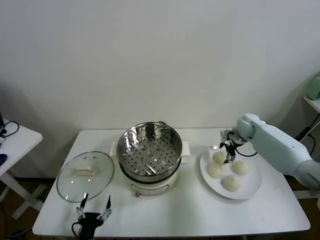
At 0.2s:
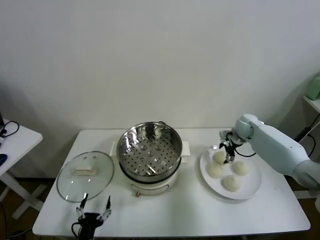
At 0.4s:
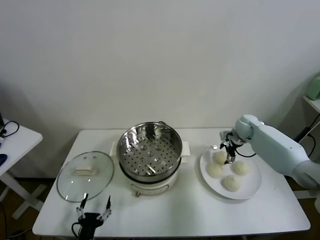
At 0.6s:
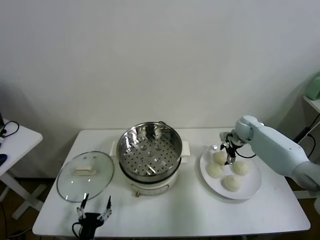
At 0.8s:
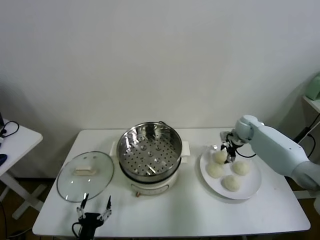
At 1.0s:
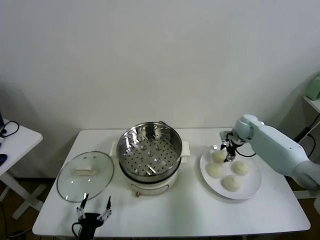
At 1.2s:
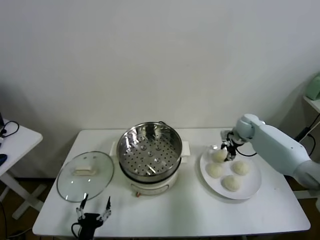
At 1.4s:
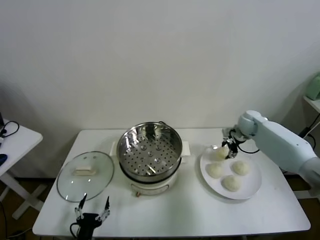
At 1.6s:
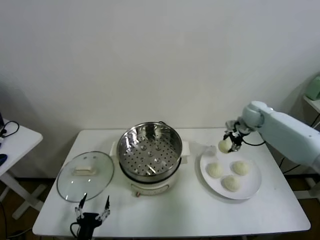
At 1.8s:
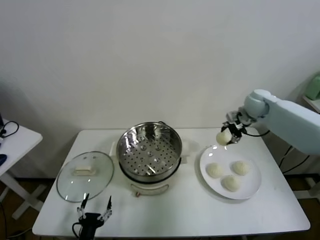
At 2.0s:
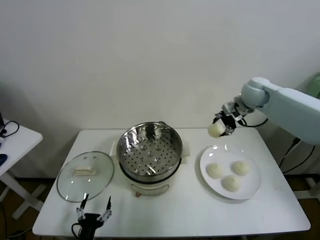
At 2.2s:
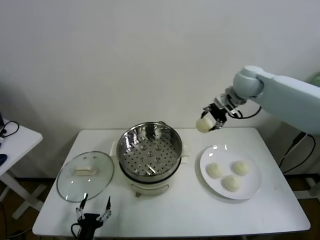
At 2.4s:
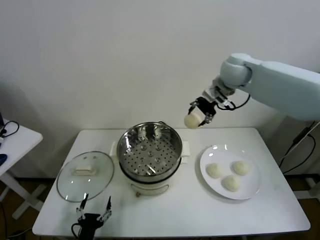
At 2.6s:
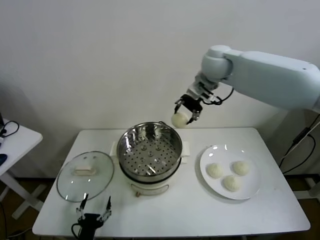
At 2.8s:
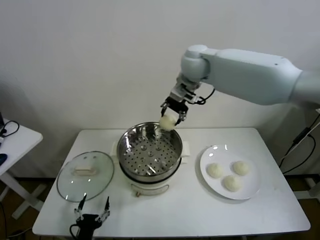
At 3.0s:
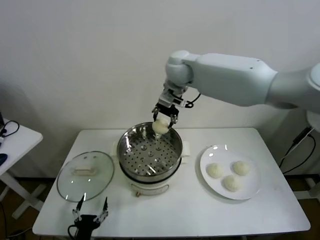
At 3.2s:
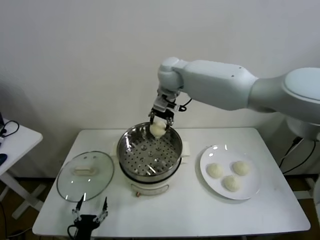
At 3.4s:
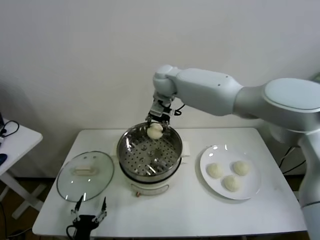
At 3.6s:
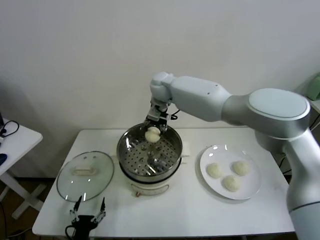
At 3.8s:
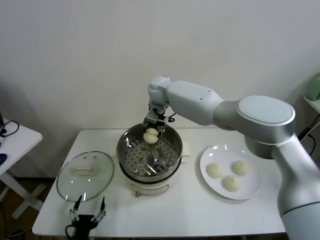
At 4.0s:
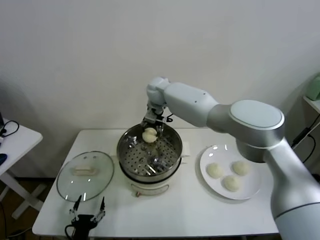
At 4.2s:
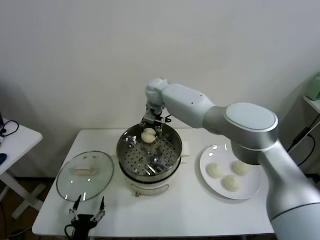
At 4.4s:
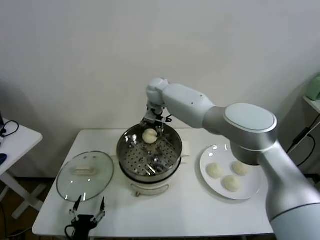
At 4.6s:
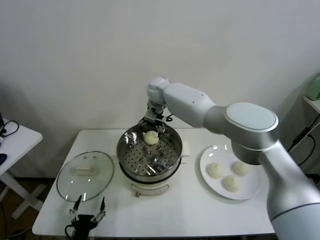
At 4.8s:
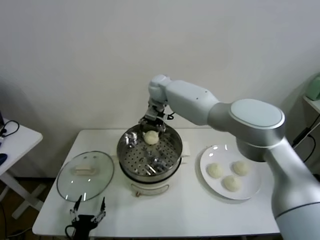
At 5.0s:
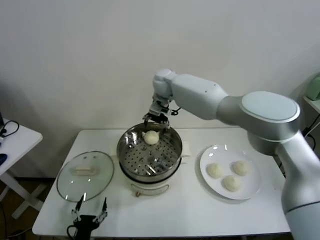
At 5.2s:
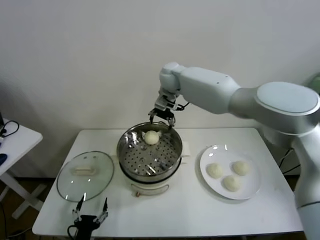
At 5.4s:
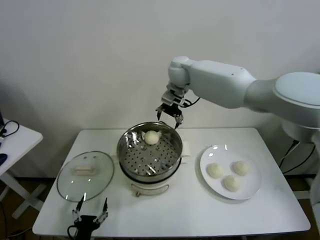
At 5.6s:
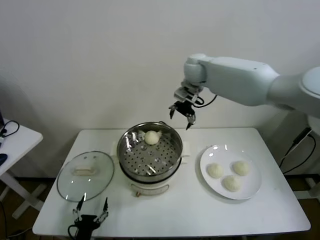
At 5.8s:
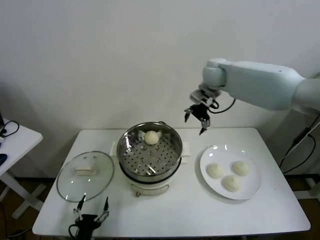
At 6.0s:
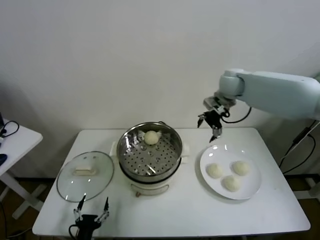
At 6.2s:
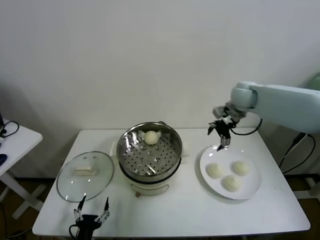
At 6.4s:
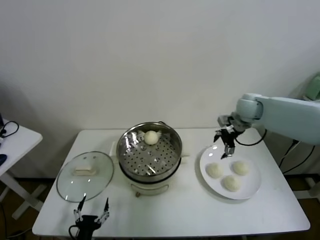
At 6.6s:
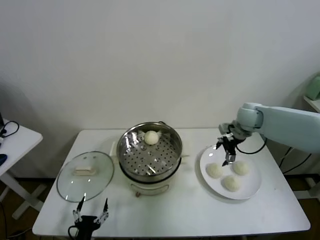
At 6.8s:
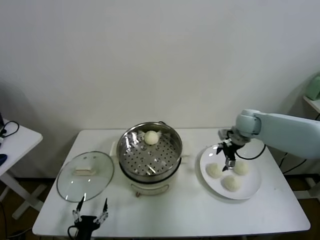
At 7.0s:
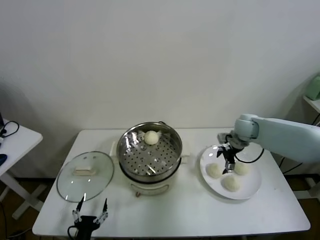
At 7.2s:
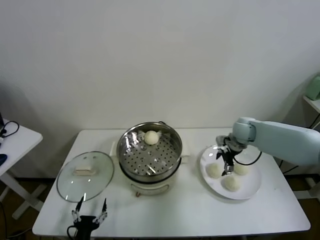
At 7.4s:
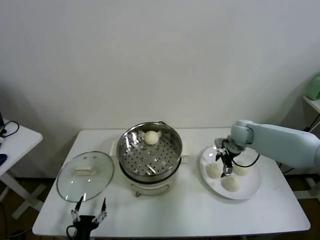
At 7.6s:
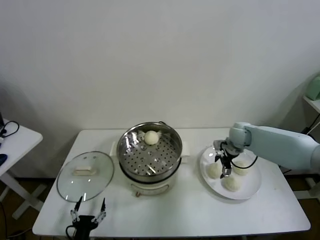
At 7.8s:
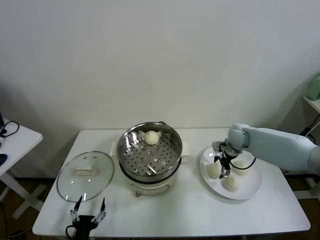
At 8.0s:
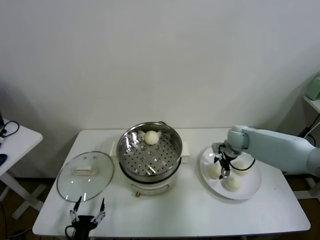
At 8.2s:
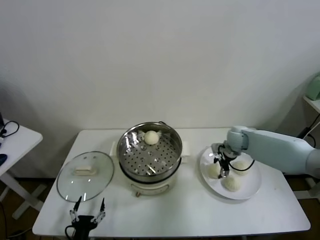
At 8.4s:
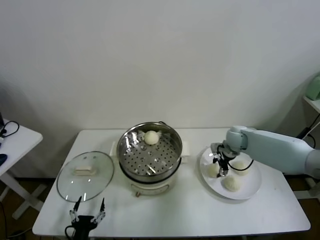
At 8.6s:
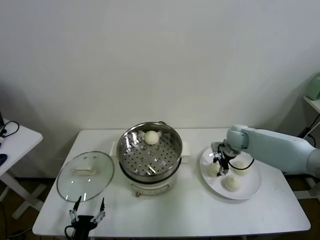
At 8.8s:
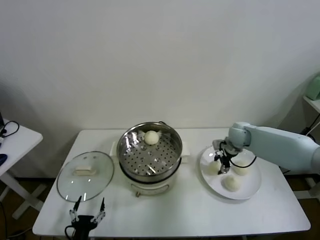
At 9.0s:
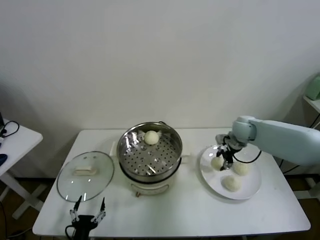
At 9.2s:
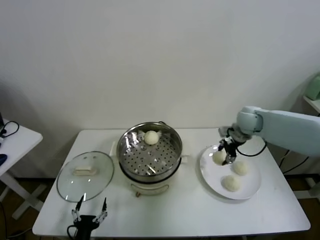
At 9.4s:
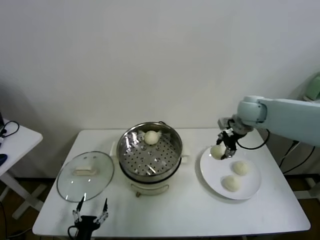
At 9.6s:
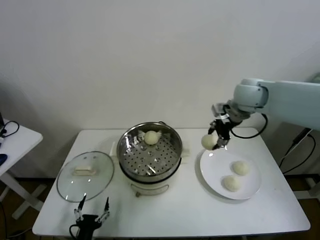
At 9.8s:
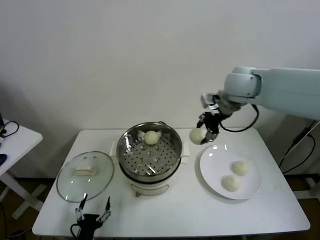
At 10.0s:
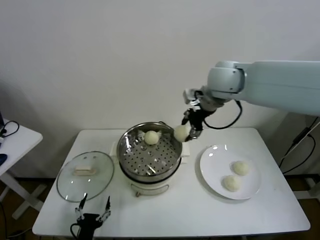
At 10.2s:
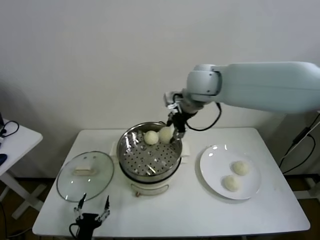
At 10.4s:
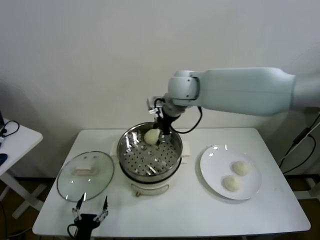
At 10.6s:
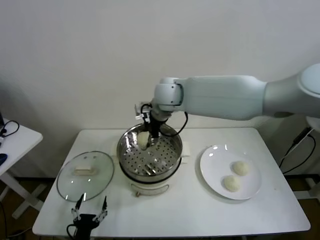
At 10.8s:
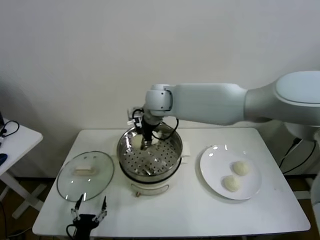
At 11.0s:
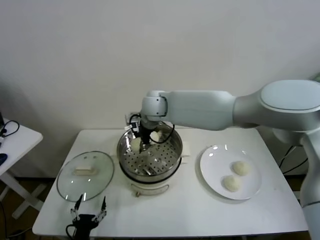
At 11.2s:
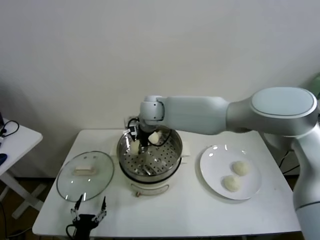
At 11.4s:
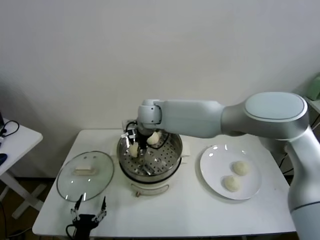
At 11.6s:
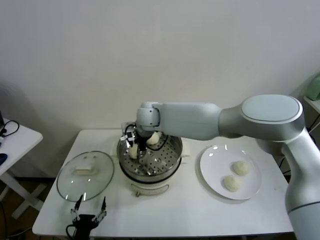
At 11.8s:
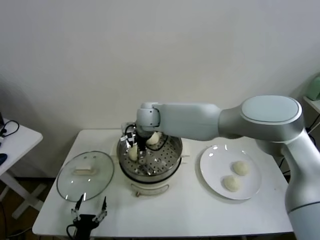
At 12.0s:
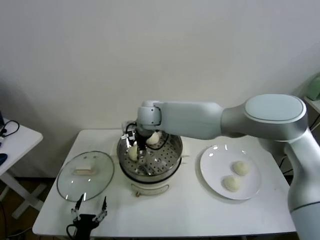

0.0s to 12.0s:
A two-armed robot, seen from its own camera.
Task of the whole recording: take steamed baozi put them in steamer.
Step, 1.4s to 4.6s: Place the baozi on the steamer with right gripper.
Step, 5.0s to 8.6s: Grasp the baozi in the plate with right gripper.
0.0s to 1.6s: The right gripper shifts roughly 10 cm upward, and closes its fingers.
1.6s to 3.0s: The right gripper goes approximately 35 cm to the left and upward.
3.0s to 4.4s: The right gripper heads downward, forward and to the left, covering roughly 15 cm, and opens its fingers.
4.4s to 6.0s: The right gripper moves to the right, approximately 25 cm.
6.0s to 7.6s: The right gripper travels downward by roughly 20 cm.
7.6s to 9.0s: The right gripper travels upward by some 5 cm, and closes.
9.0s to 10.4s: The right gripper is displaced to the left and upward by approximately 30 cm.
10.4s to 12.0s: The right gripper travels downward and to the left by about 15 cm, and opens up.

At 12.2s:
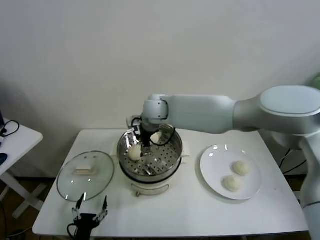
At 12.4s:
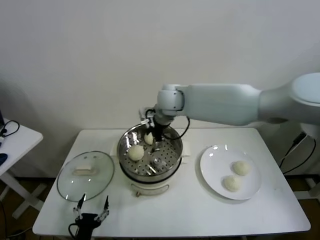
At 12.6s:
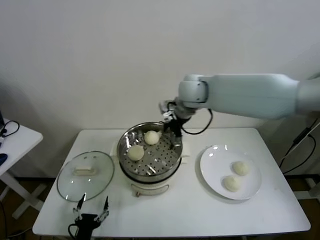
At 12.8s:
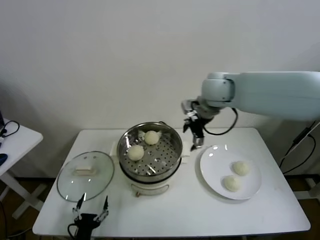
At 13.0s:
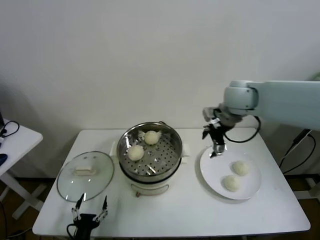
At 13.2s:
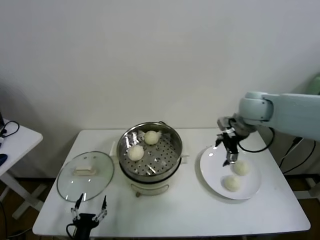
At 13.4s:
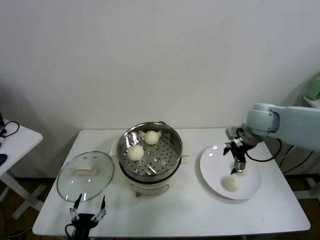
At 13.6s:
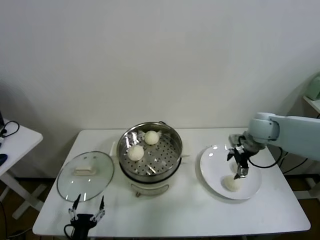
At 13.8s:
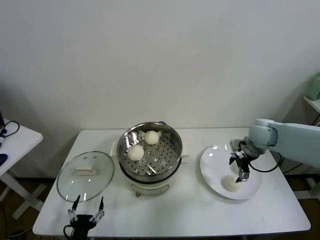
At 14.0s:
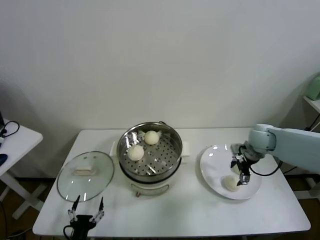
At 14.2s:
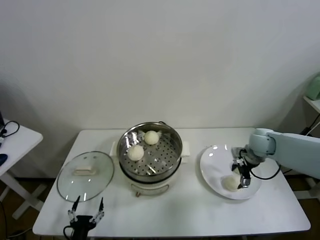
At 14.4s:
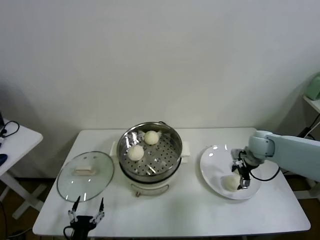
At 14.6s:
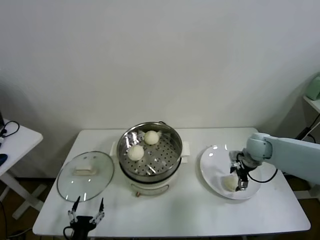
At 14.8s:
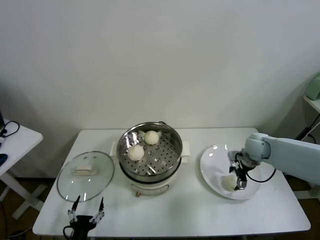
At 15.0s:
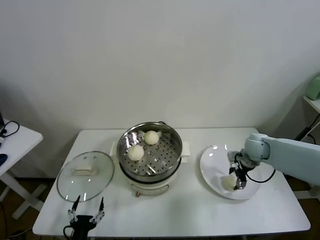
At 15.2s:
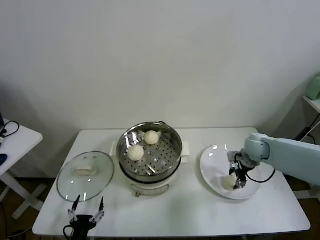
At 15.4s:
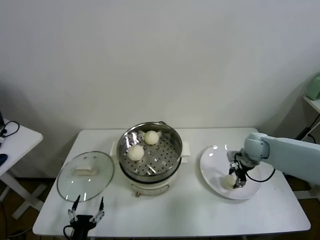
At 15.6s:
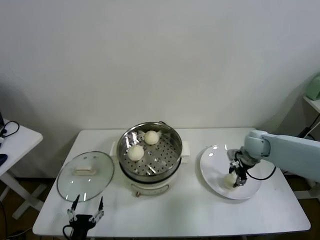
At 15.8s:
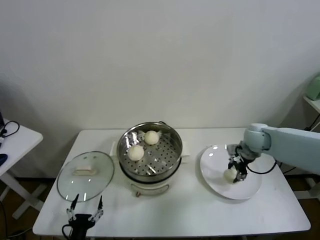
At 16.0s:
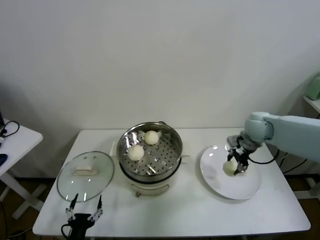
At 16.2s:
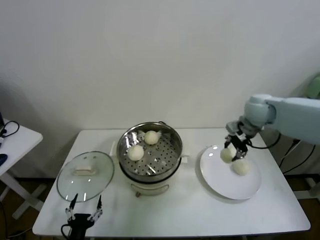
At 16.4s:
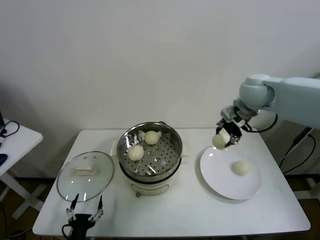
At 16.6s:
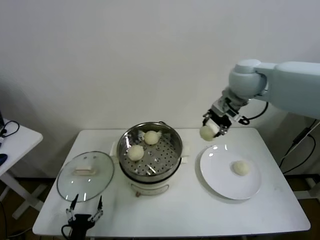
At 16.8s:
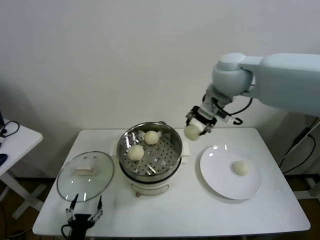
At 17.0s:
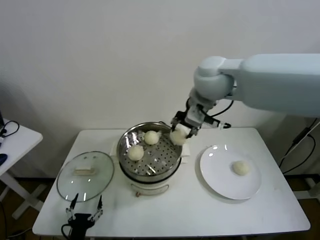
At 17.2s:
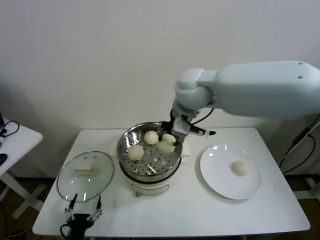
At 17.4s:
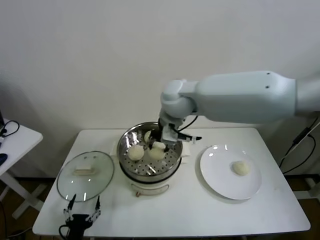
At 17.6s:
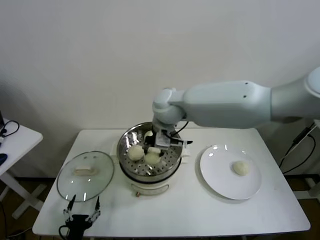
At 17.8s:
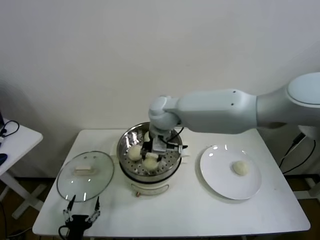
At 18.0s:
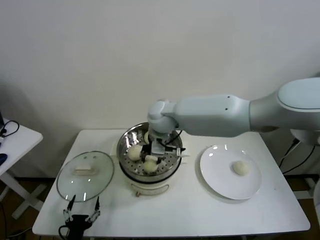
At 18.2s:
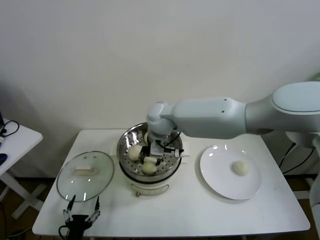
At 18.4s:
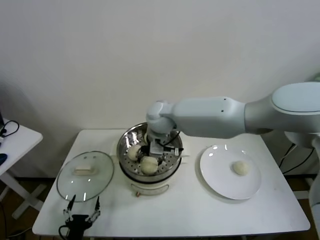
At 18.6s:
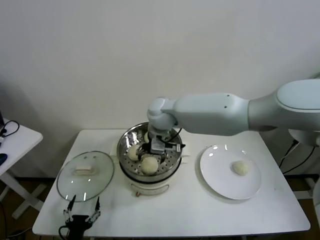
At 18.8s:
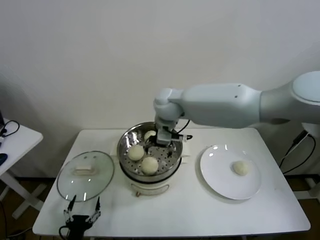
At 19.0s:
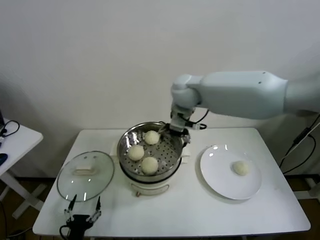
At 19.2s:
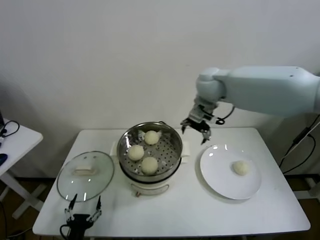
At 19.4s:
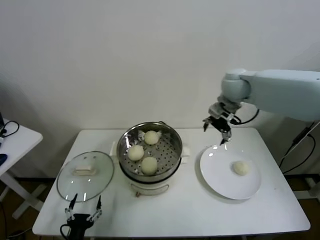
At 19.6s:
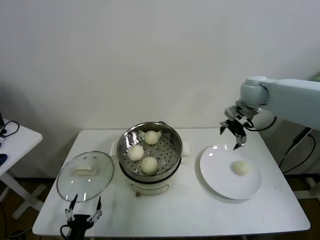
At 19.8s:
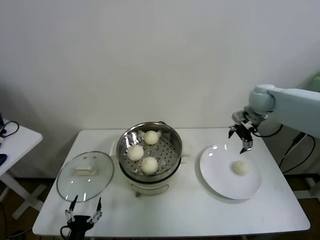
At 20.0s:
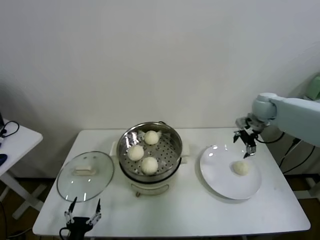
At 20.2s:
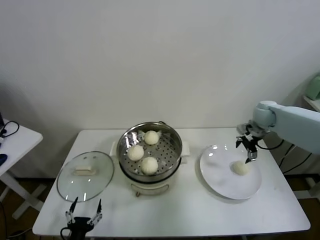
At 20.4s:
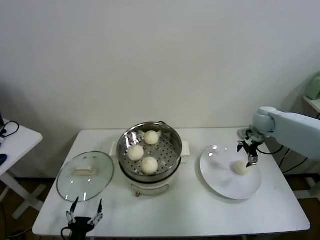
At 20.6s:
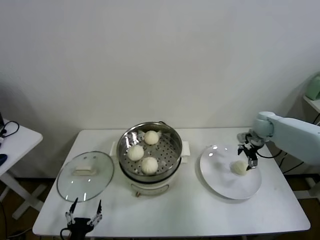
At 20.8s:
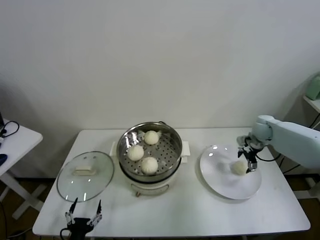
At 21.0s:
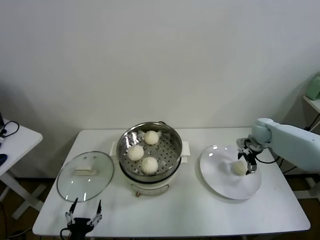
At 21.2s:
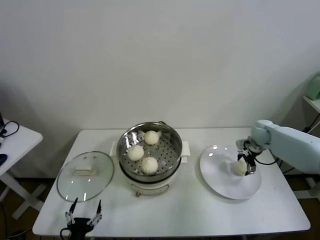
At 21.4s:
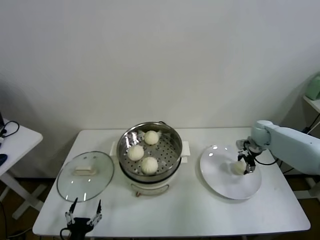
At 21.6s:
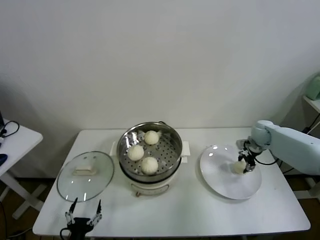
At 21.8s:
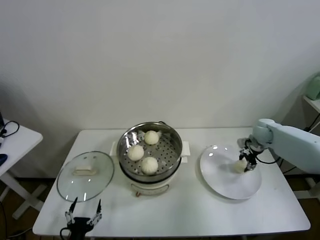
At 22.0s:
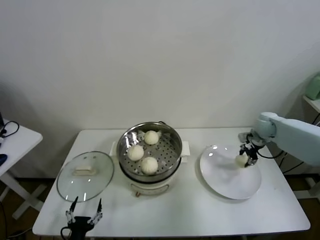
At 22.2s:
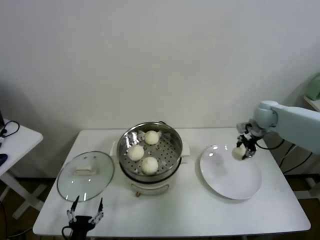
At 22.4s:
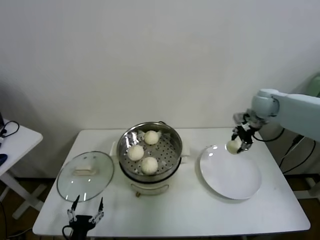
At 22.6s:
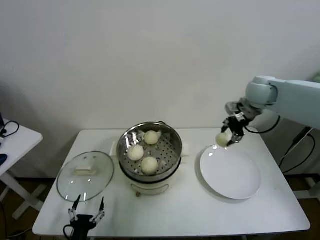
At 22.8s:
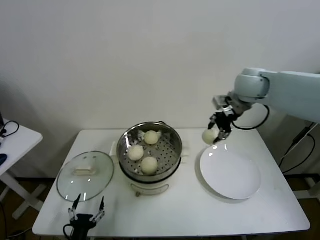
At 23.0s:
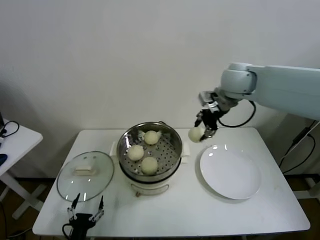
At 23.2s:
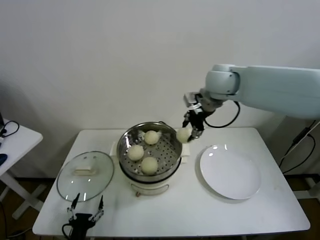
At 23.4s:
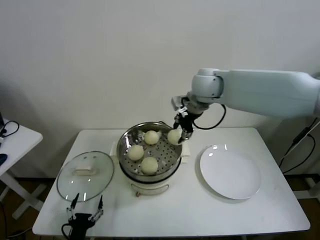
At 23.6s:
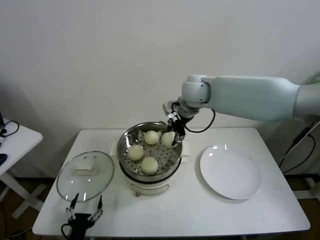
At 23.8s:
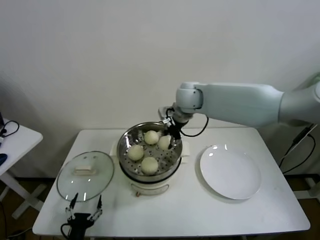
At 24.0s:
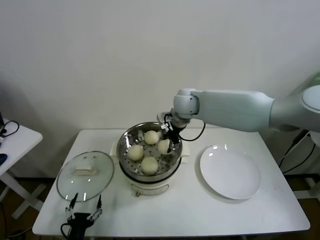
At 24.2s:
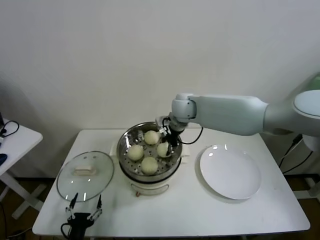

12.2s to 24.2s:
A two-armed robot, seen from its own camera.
Task of the whole recording: take steamed baozi put them in steamer.
Step, 12.4s to 18.4s: Grasp the baozi in the plate with right gripper.
Step, 18.8s to 21.6s: Grasp the baozi in the plate with right gripper.
12.2s to 13.8s: The right gripper goes approximately 35 cm to the right.
13.8s to 15.2s: The right gripper heads downward, covering approximately 5 cm, and closes.
15.2s to 16.6s: The right gripper shifts about 30 cm upward and to the left.
16.6s to 18.2s: The right gripper moves to the left and downward, roughly 25 cm.
18.2s to 19.8s: The right gripper heads to the right, covering approximately 35 cm, and opens up.
19.8s to 21.2s: The right gripper travels downward by some 15 cm.
21.2s to 22.6s: The right gripper heads upward and to the left, covering roughly 25 cm, and closes.
22.6s to 24.2s: The right gripper is displaced to the left by about 25 cm.
